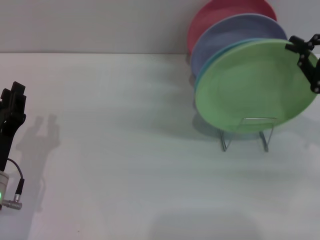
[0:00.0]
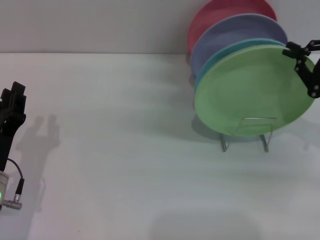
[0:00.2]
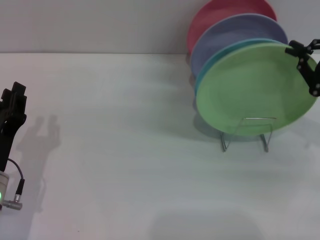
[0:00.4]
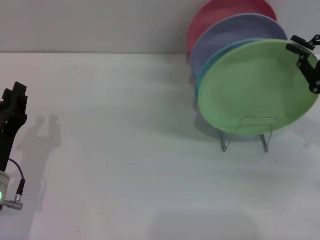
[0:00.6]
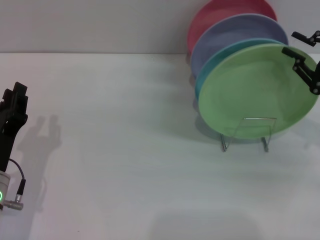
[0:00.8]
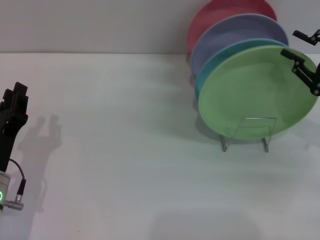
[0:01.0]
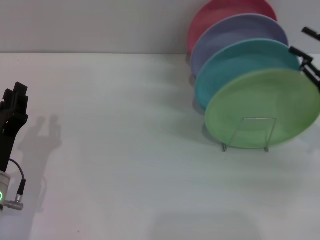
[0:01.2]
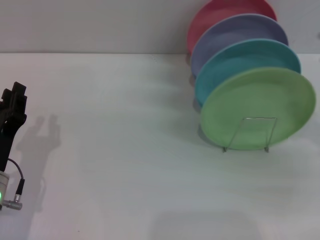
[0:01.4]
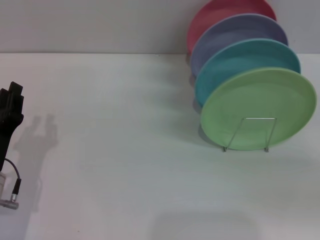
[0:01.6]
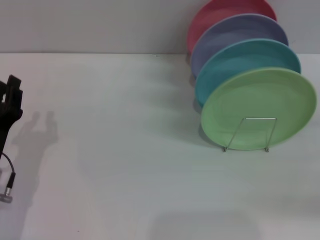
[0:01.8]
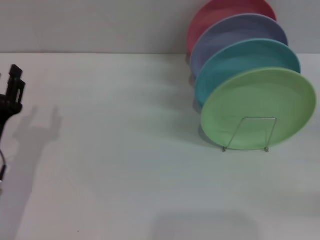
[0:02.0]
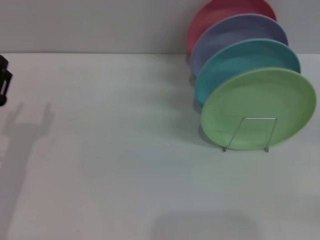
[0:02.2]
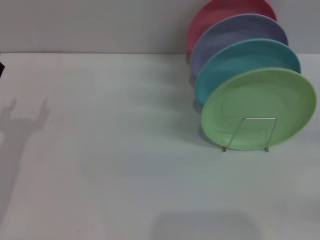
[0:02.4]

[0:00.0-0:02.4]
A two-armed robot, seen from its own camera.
Task of the whole recording: Grip the plate with one hand, pass it to the other, then set it on the shelf.
0:00.0 to 0:01.2: The right gripper opens up.
0:01.2 to 0:02.4: The right gripper heads to the right, downward and backward, covering approximately 10 cm, and opens up; the left gripper changes place by roughly 5 cm, and opens its fingers.
